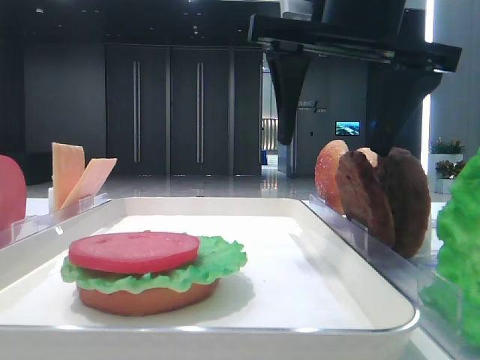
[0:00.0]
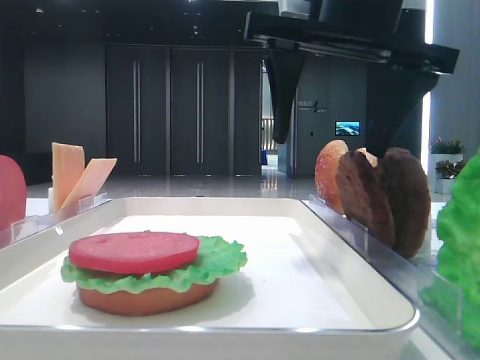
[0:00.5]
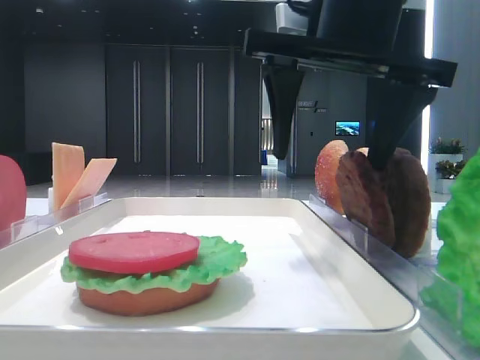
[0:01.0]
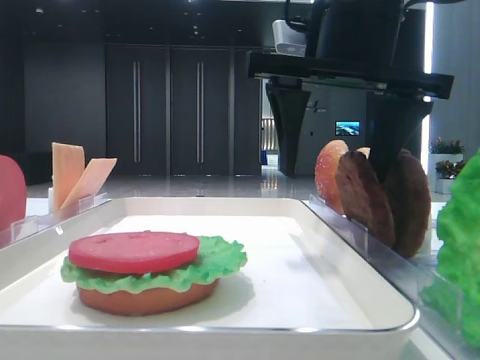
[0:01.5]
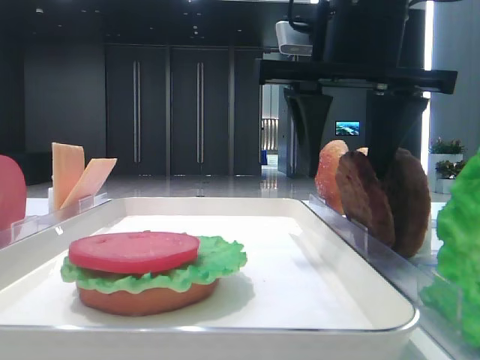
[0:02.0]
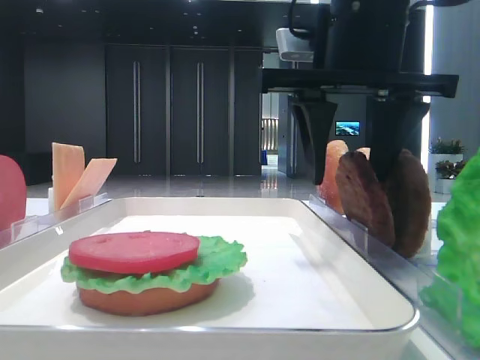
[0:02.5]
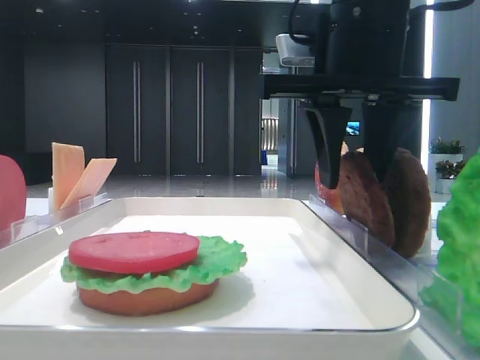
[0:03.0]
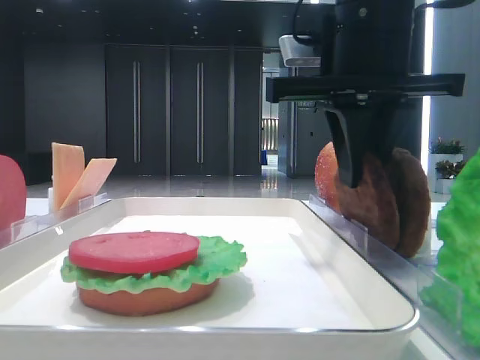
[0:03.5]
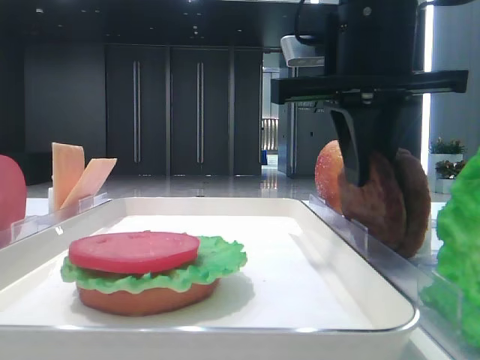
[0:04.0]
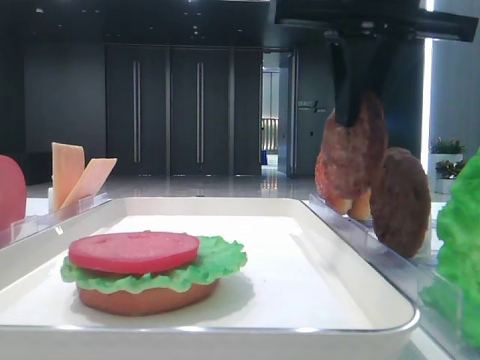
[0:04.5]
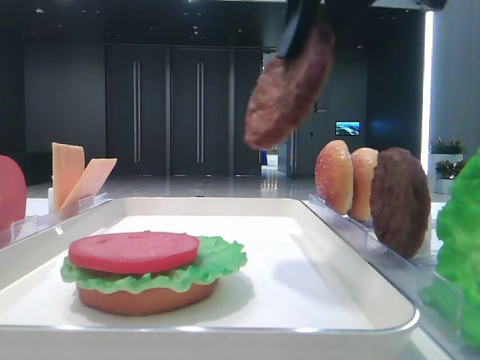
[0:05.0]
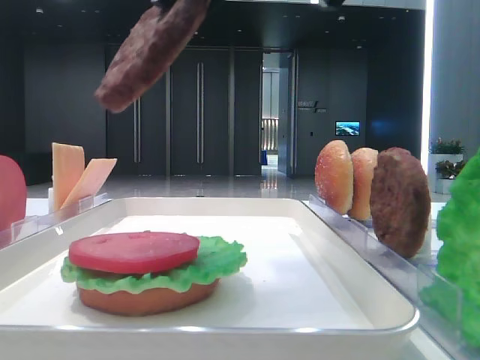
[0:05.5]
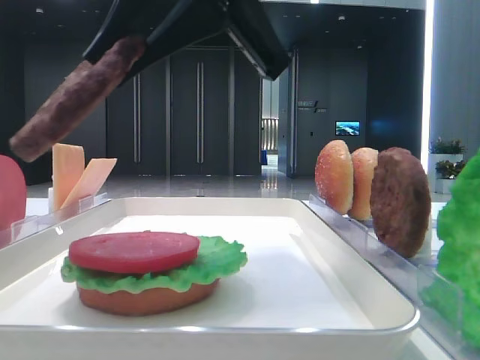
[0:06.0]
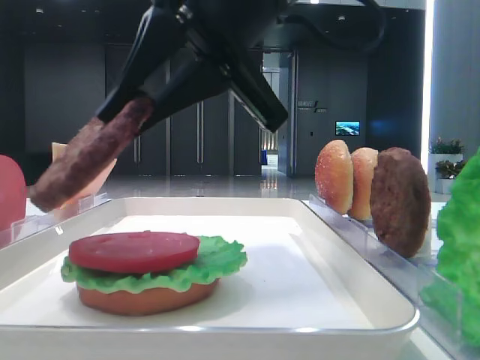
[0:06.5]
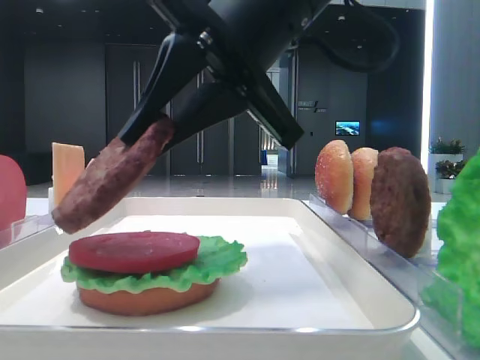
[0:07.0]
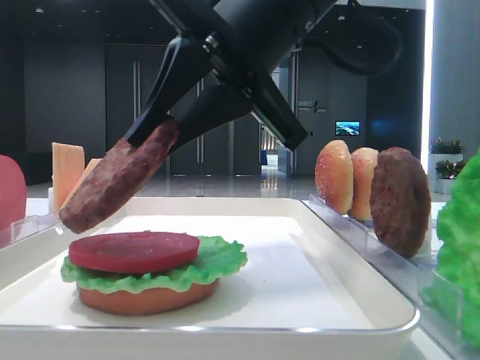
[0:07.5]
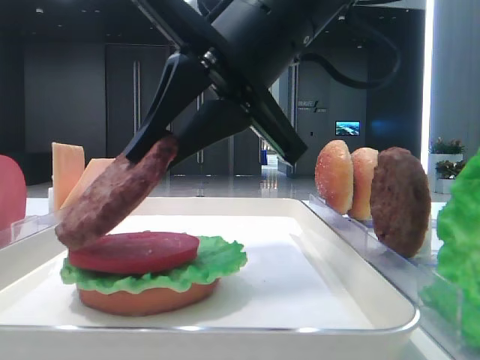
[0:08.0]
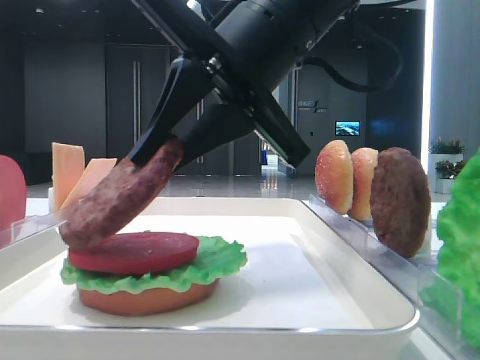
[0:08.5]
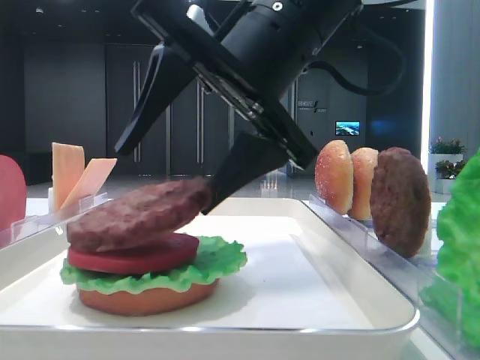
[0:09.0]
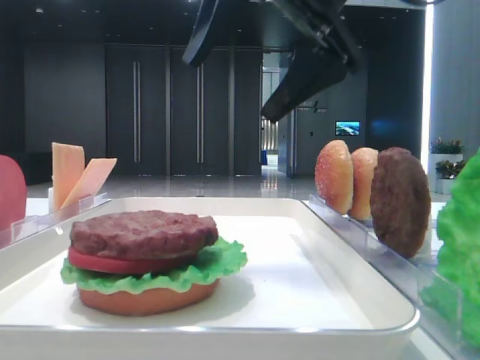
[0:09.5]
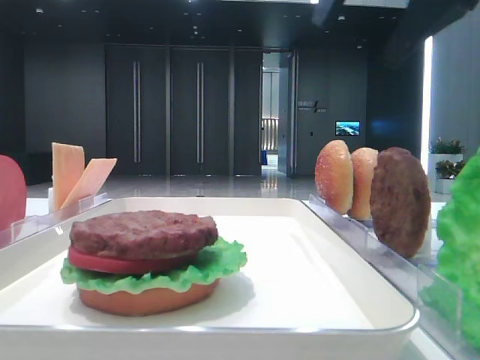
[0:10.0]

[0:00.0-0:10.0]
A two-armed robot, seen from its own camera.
Step, 0:00.0 to 0:03.0: Grab the patty with the right hand.
Step, 0:03.5 to 0:09.0: Place the patty on the tomato slice with the right hand.
0:00.0 to 0:02.0: The grippers make only small movements.
0:02.0 to 0:04.0: The right gripper closes.
0:04.0 to 0:06.0: The right gripper travels to the left and backward by some 10 cm.
0:06.0 to 0:08.0: The right gripper heads downward, covering some 5 cm.
0:08.0 to 0:10.0: The right gripper shifts some 20 cm to the right and upward, and opens.

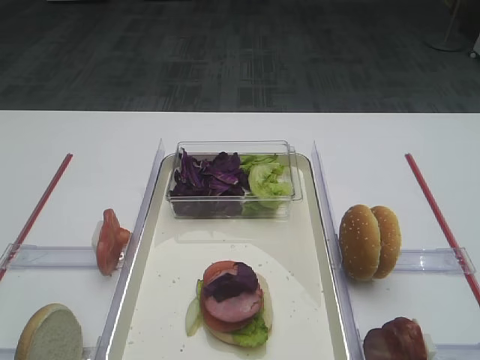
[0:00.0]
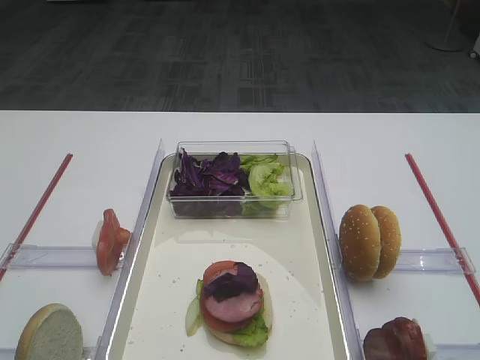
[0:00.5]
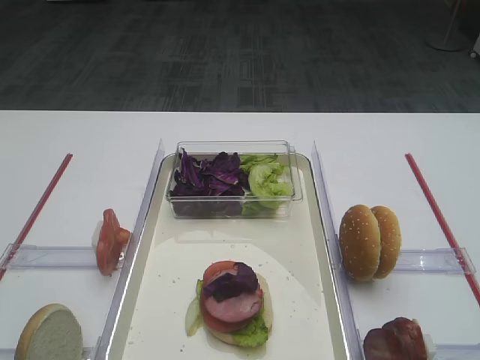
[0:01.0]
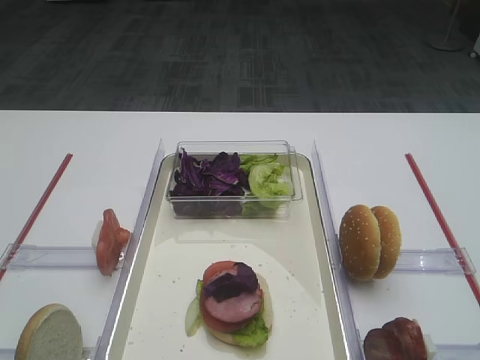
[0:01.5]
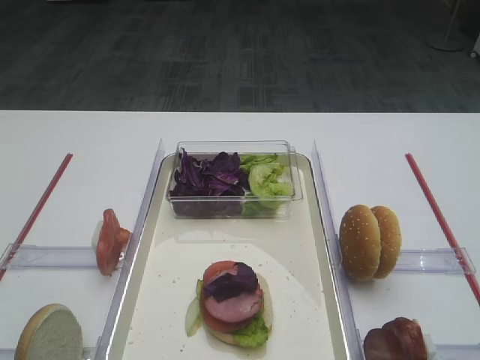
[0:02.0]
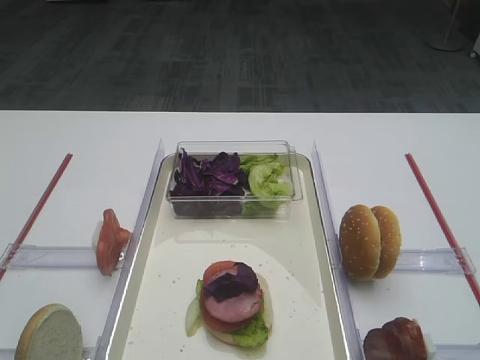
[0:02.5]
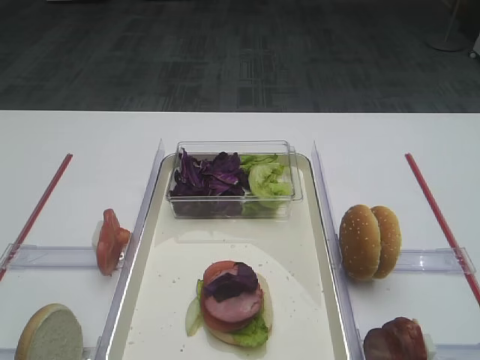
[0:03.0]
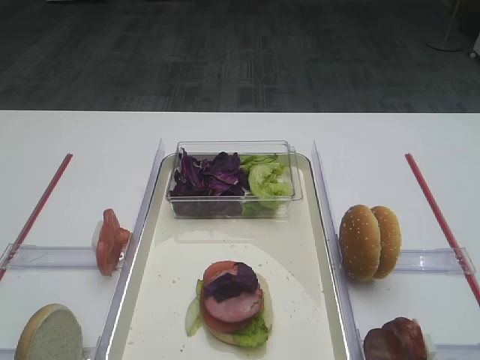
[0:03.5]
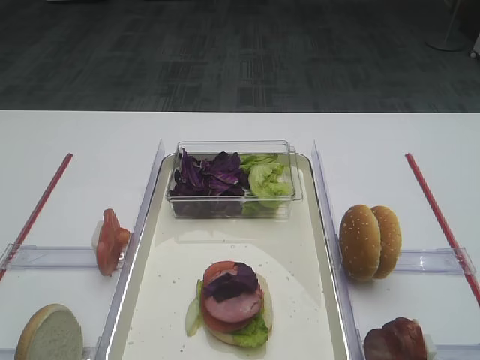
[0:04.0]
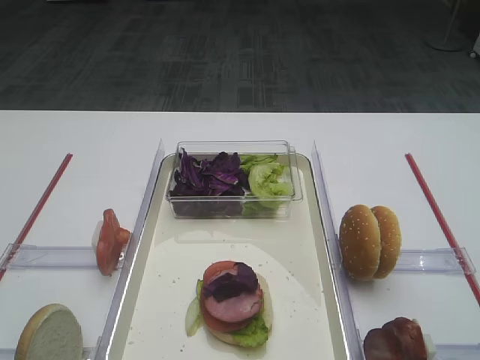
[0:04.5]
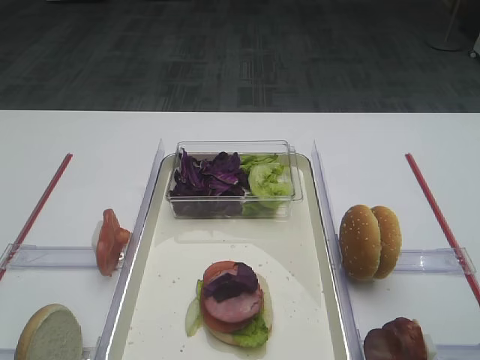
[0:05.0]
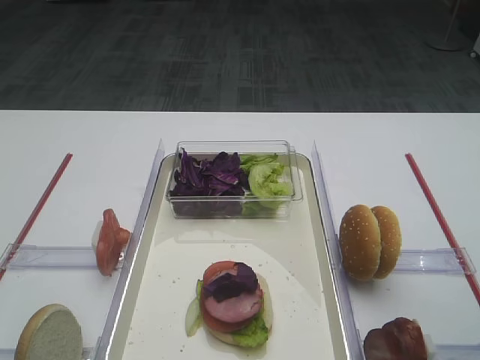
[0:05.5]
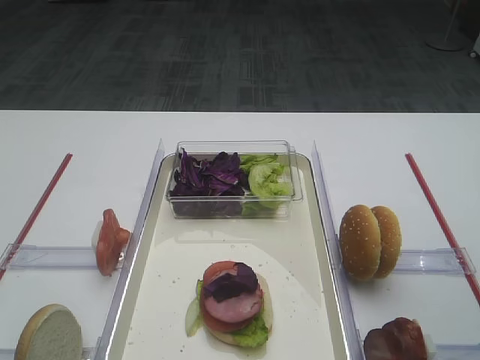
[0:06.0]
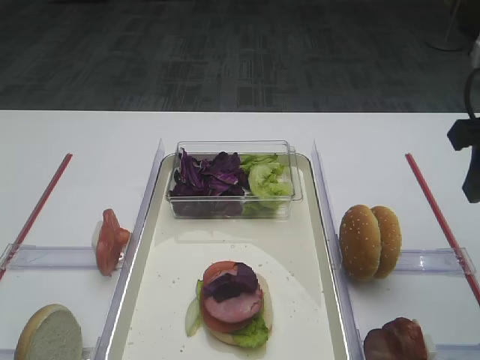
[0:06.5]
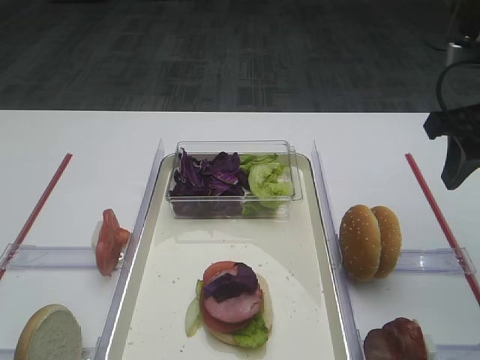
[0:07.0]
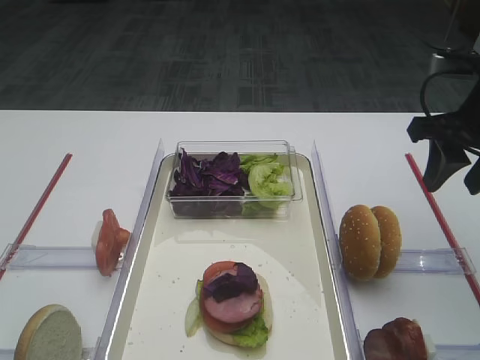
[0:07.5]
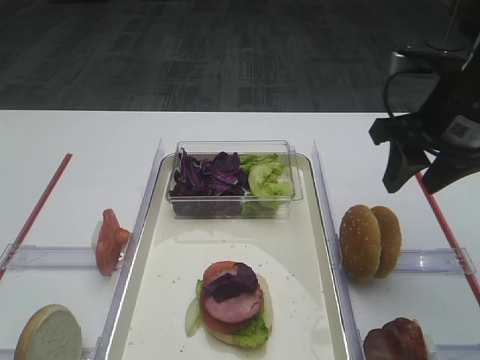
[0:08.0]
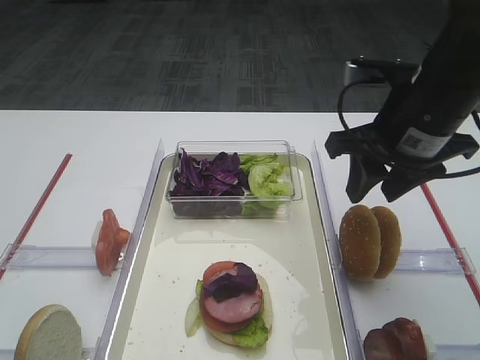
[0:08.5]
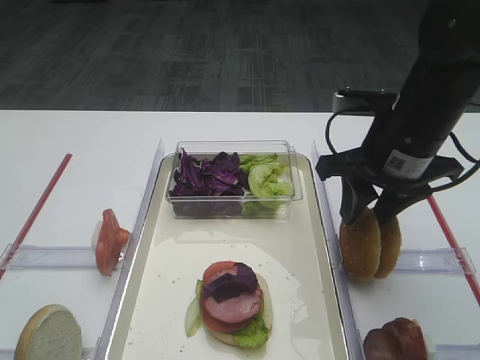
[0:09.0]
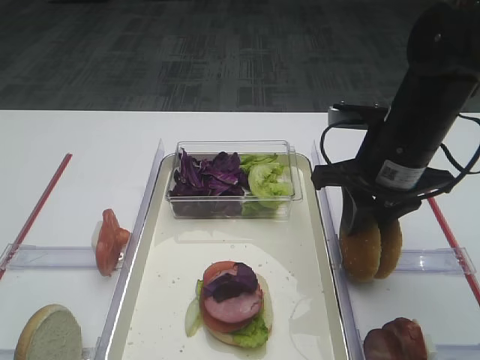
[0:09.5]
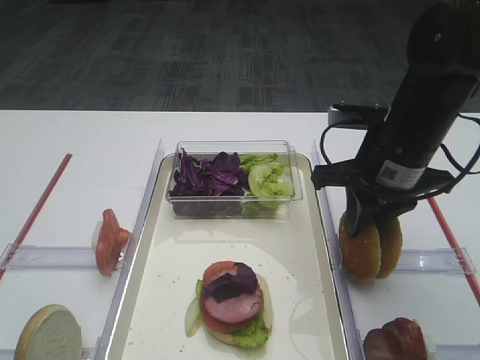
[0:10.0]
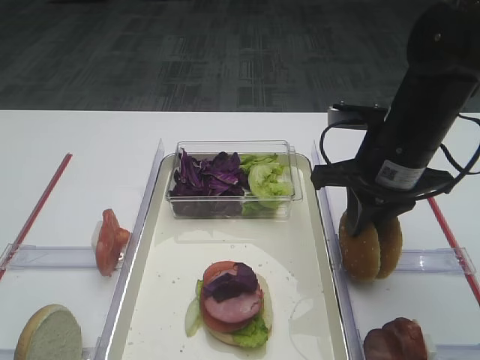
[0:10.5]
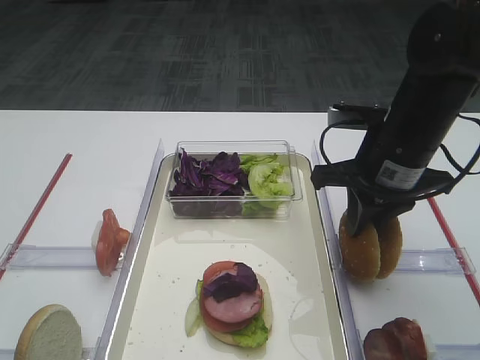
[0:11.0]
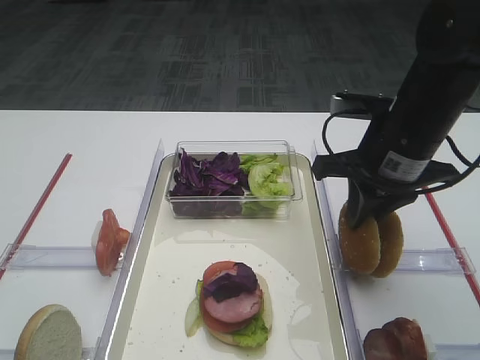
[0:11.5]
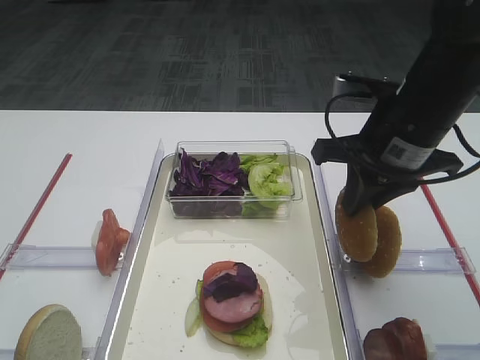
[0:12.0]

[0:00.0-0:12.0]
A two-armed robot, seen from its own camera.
0:06.0 to 0:08.0: The right gripper goes some 10 cm forward.
0:08.0 to 0:10.0: The right gripper moves to the left and downward, about 10 cm, and closes.
0:10.0 to 0:12.0: The grippers stay close to where they were, moving slightly.

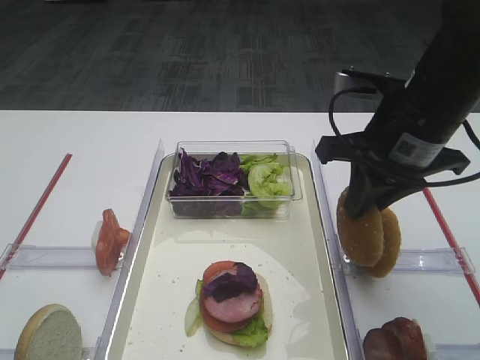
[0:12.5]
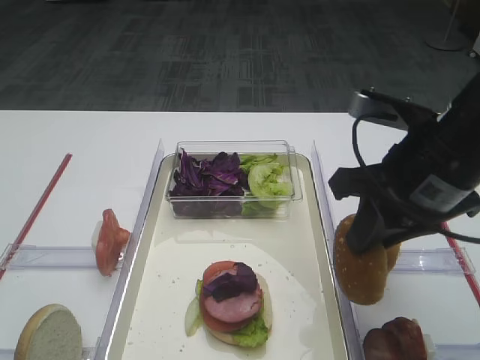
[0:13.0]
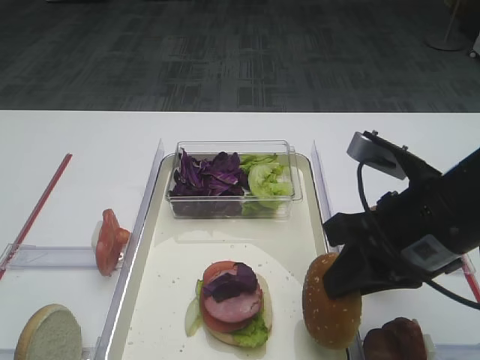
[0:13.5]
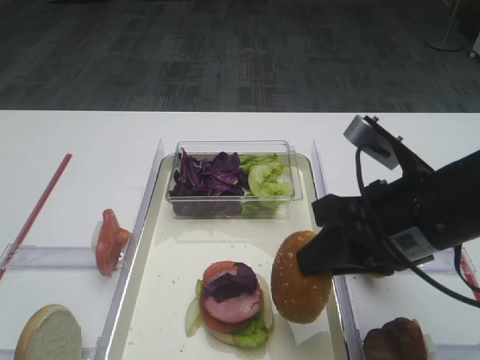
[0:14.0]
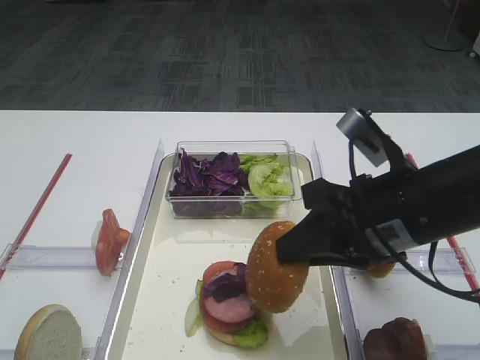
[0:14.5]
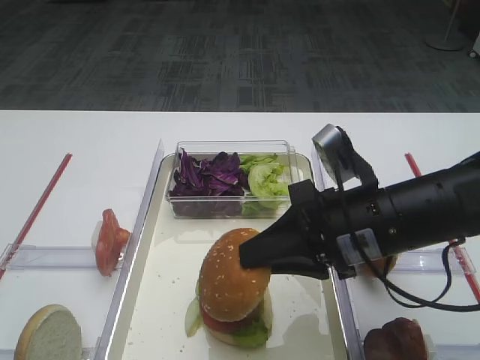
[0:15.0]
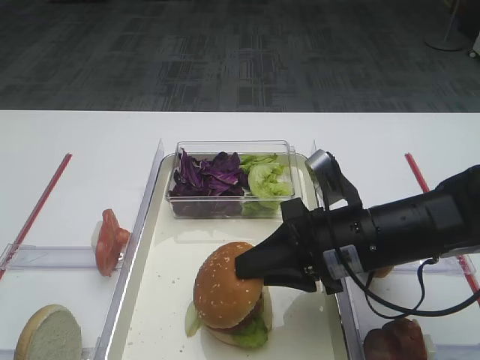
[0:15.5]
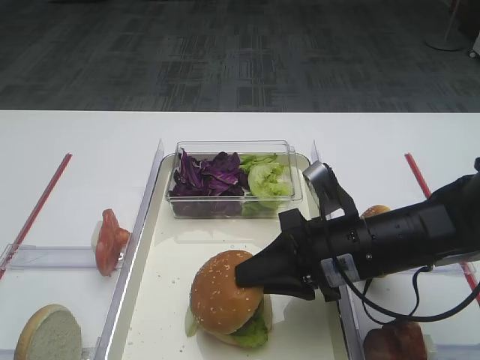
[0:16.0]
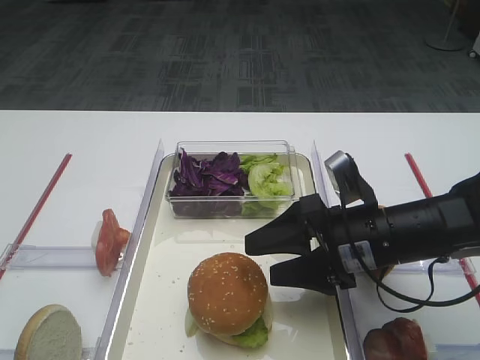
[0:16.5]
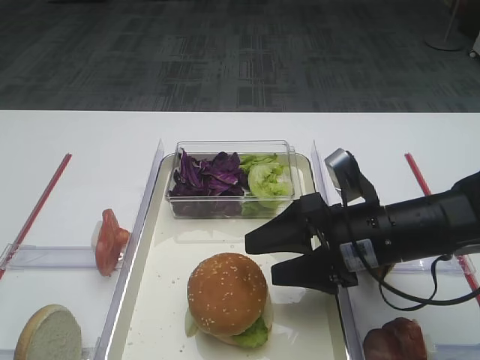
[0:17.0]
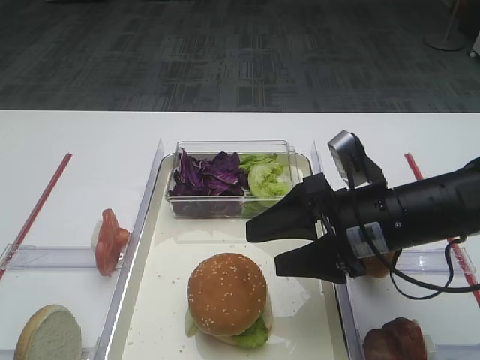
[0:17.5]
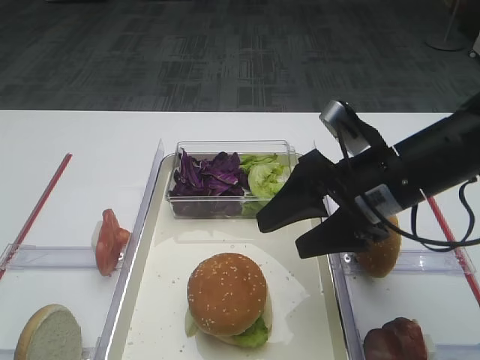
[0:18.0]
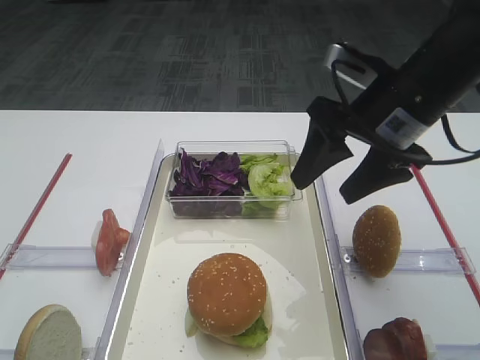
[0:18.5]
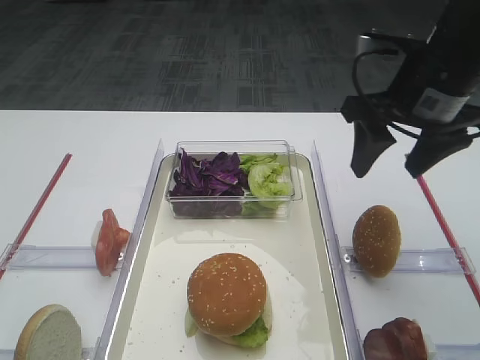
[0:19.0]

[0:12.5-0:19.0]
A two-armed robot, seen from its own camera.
Step, 0:12.5 to 0:17.5: Place the hamburger lid on the purple cabbage with the right gripper.
0:12.5 to 0:14.5: The right gripper shifts roughly 5 cm backward.
0:14.5 to 0:17.0: The right gripper goes some 10 cm downward, and opens its fingers.
0:17.0 to 0:19.0: The right gripper travels upward and forward by approximately 15 cm.
